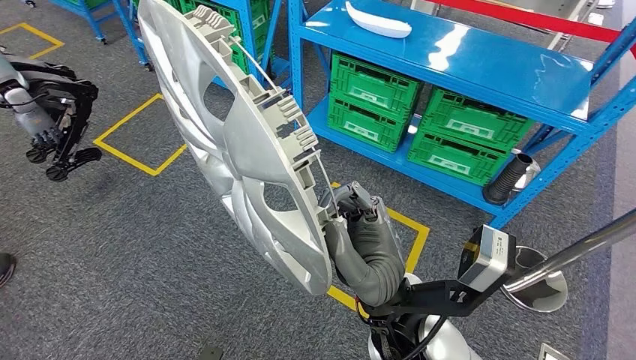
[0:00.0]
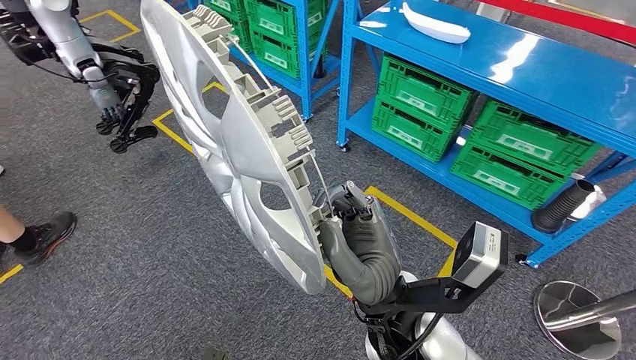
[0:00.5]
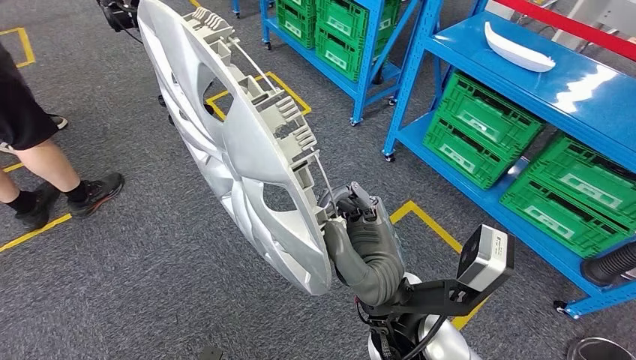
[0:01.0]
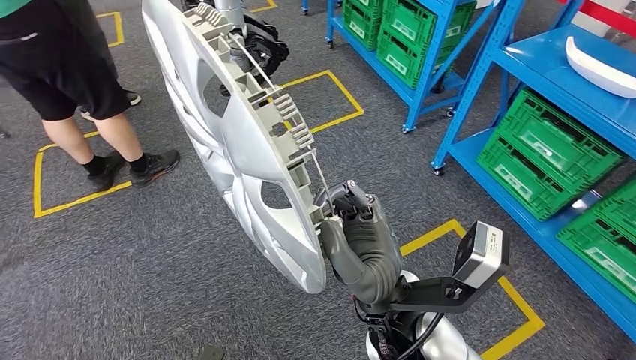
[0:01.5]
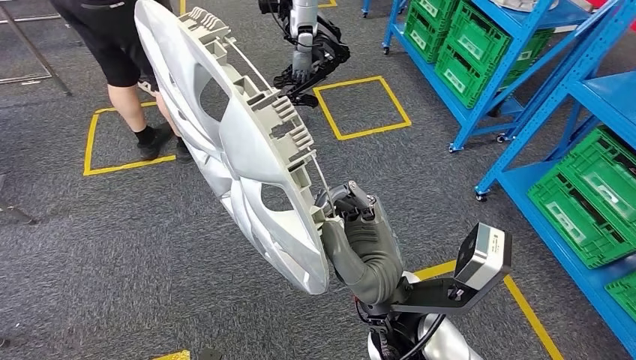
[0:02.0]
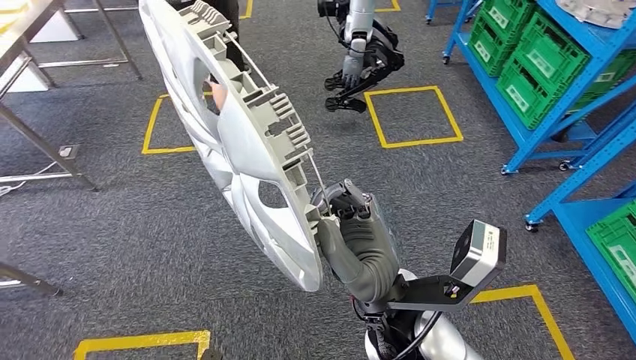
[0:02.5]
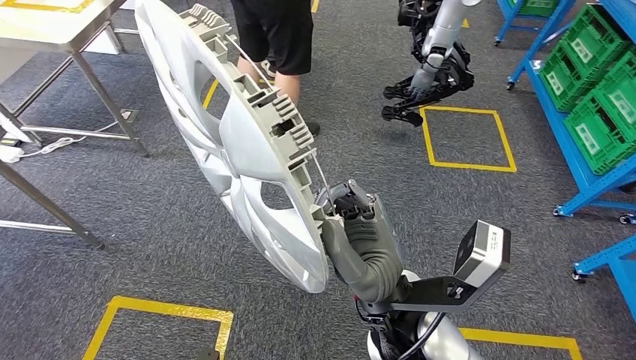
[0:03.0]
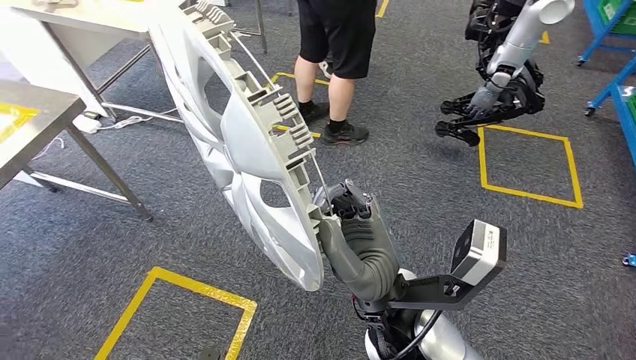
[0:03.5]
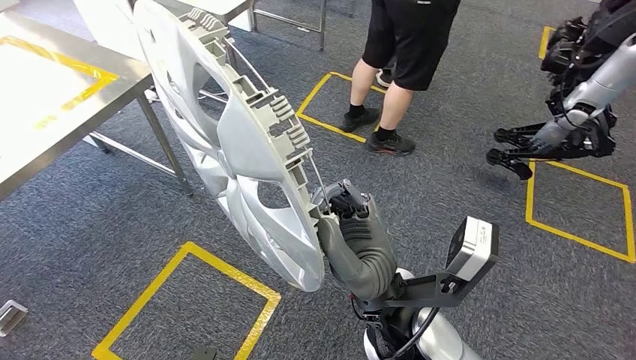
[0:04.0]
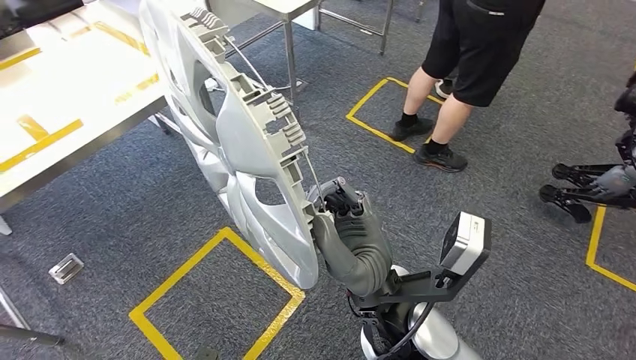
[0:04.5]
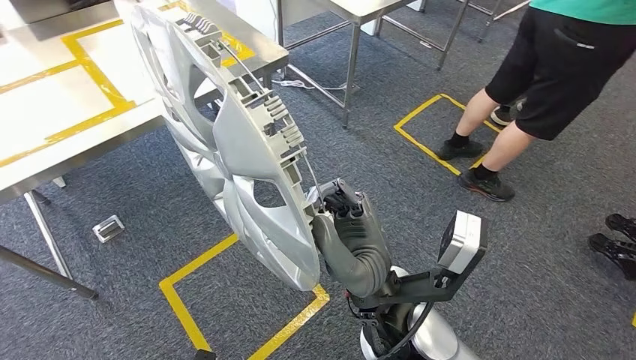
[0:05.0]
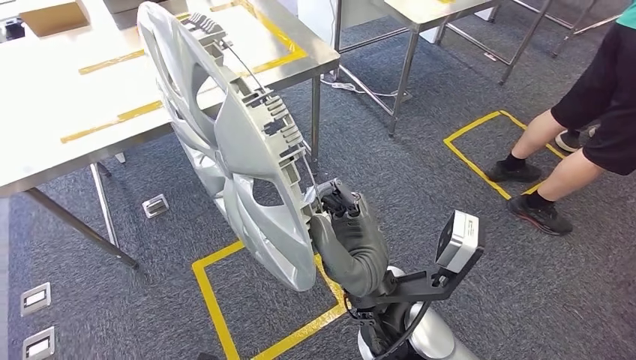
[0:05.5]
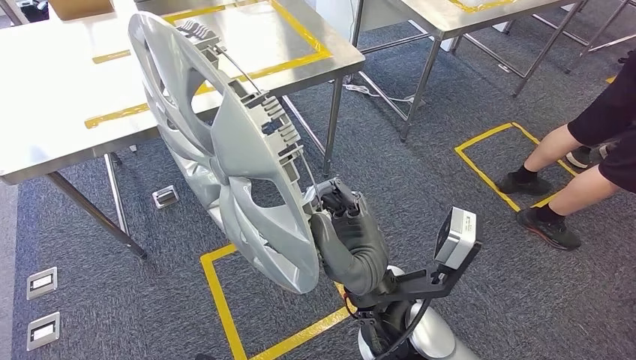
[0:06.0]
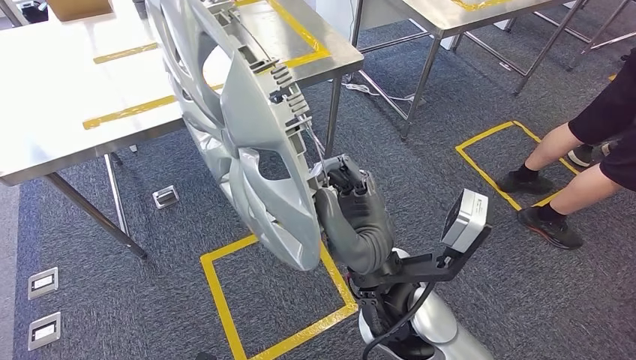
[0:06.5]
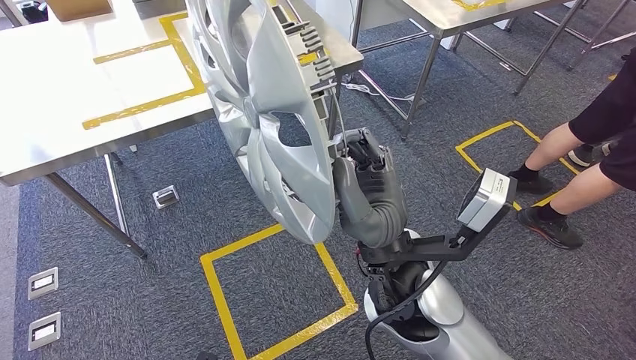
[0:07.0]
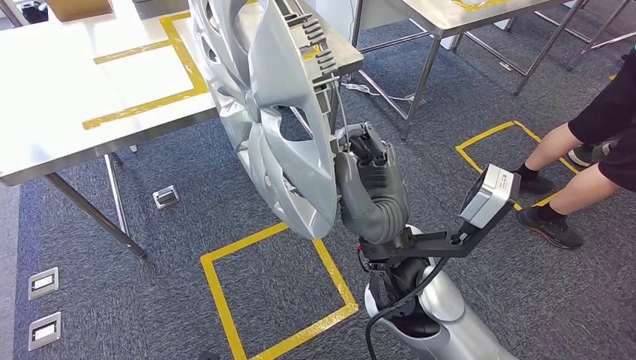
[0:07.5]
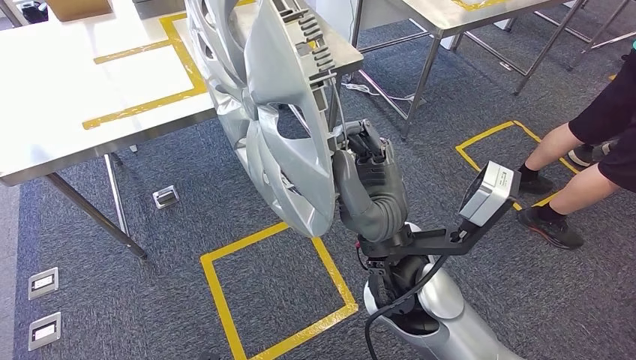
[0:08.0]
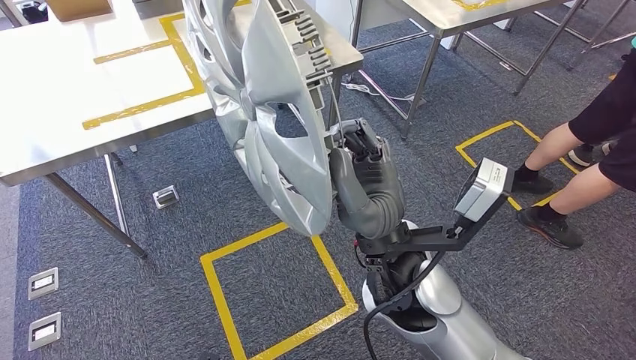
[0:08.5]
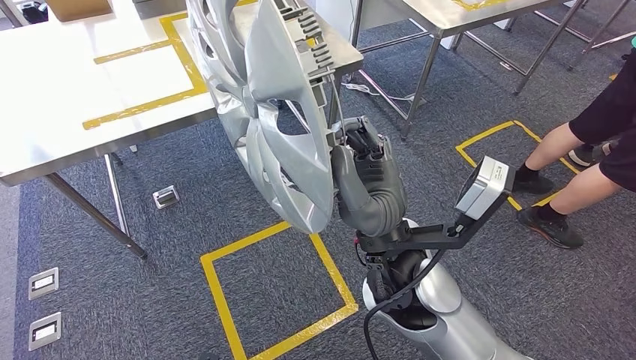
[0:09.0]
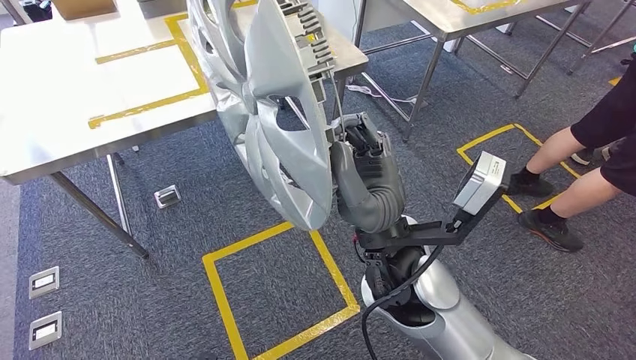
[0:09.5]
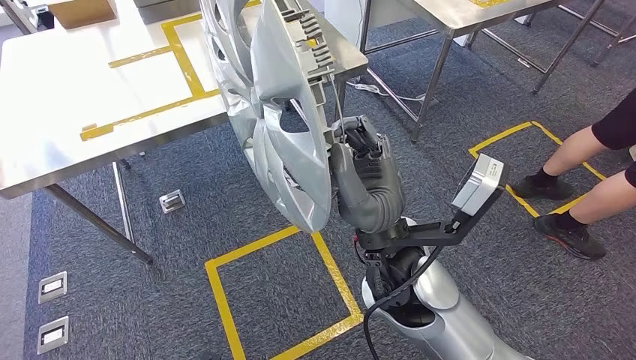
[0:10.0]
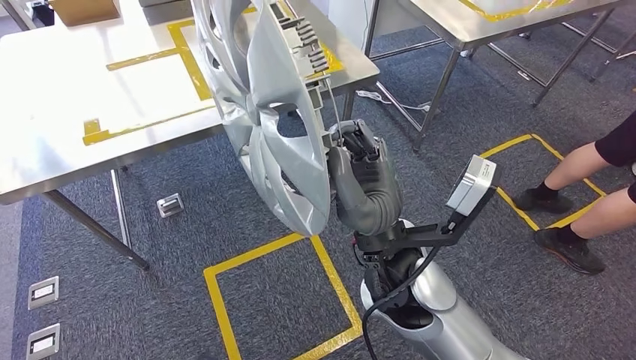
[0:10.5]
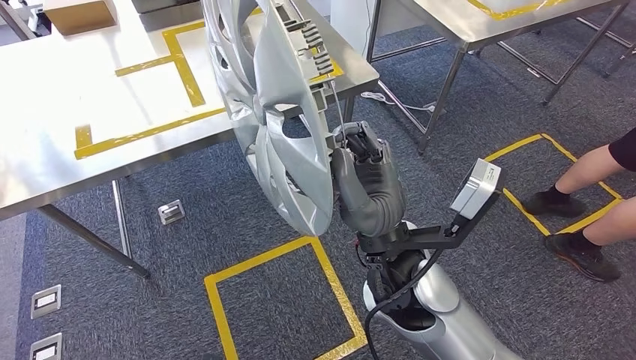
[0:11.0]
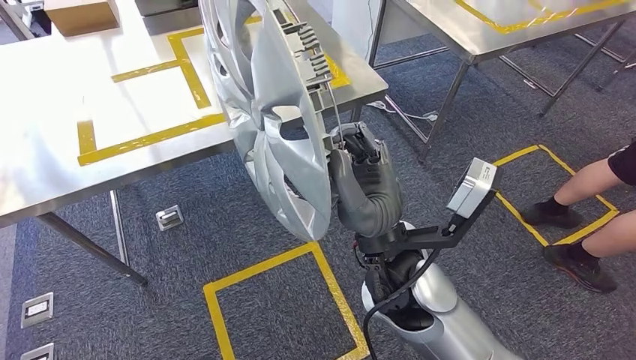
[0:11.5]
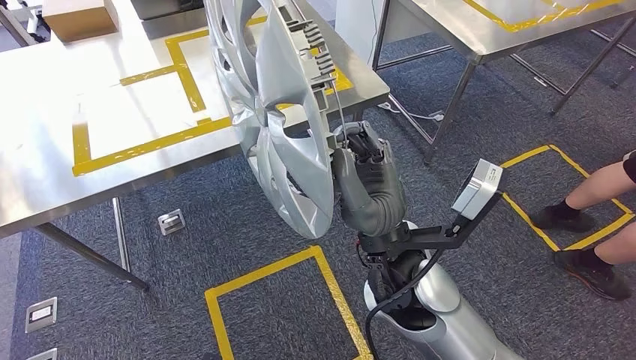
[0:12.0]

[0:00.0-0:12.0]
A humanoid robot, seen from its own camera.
Step, 0:00.0 to 0:07.5: Move the large material to the workbench.

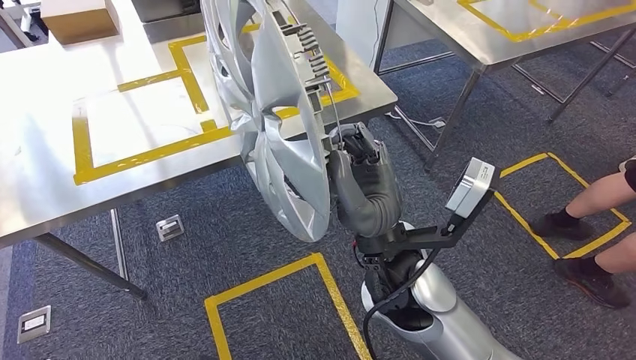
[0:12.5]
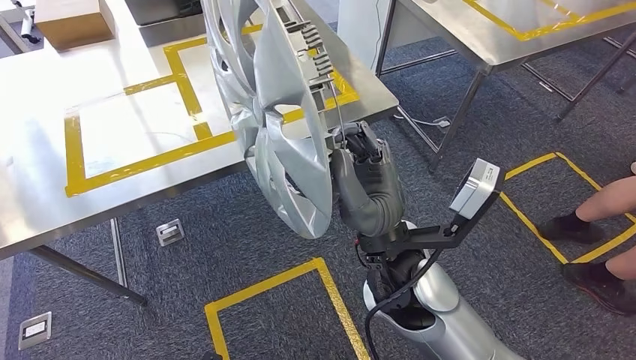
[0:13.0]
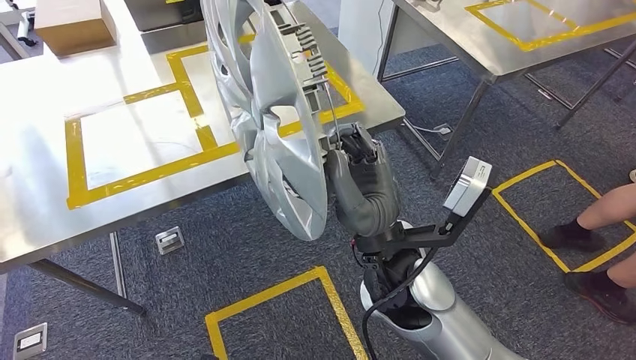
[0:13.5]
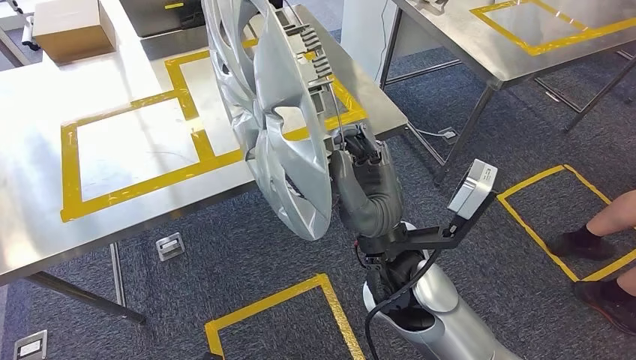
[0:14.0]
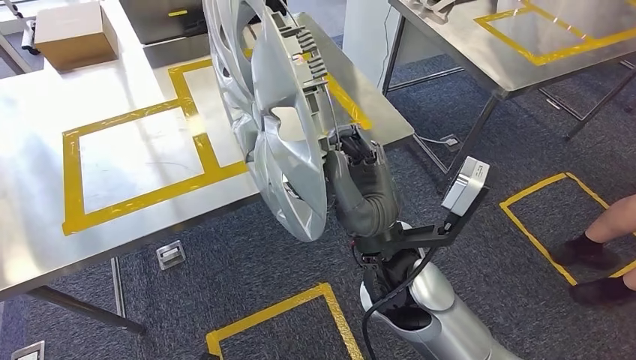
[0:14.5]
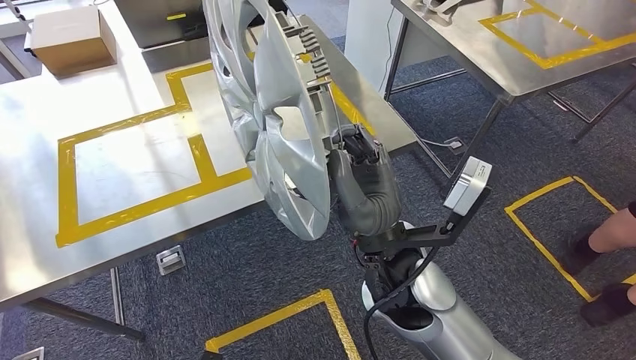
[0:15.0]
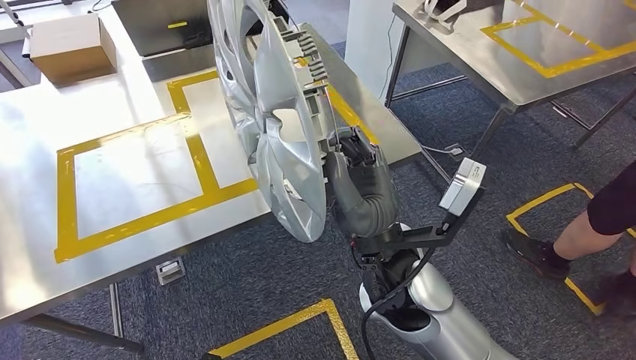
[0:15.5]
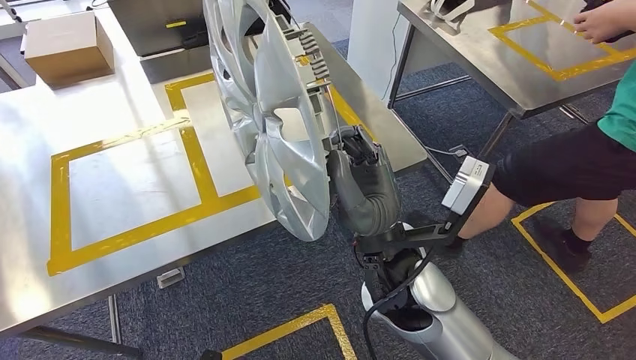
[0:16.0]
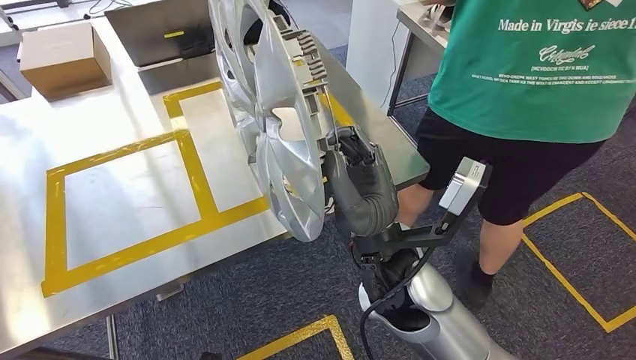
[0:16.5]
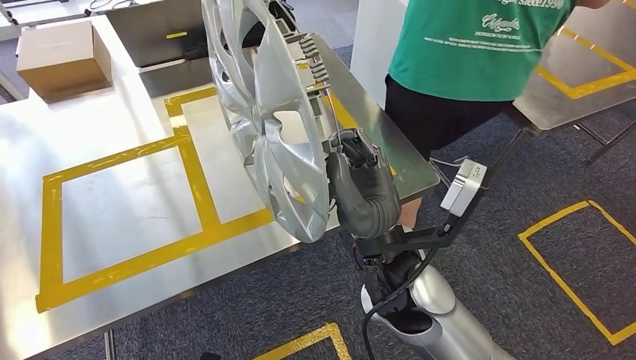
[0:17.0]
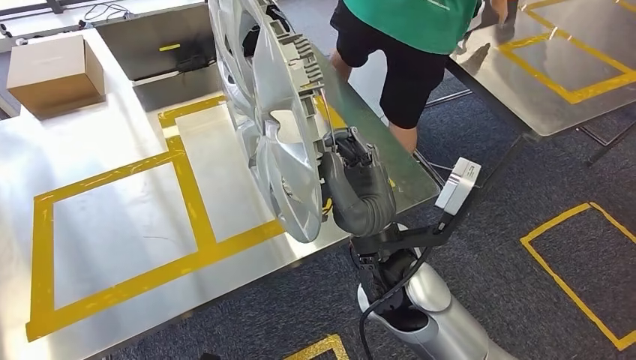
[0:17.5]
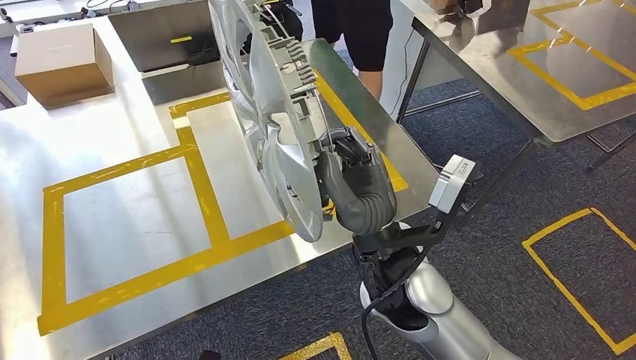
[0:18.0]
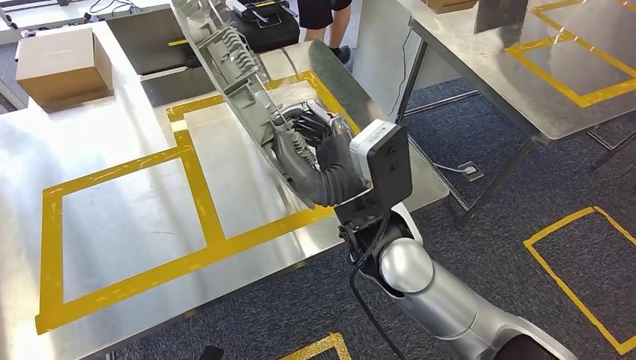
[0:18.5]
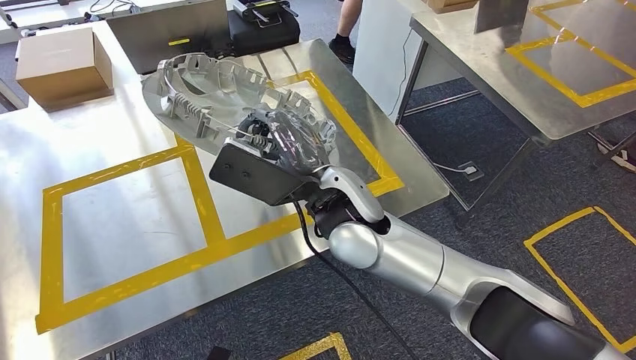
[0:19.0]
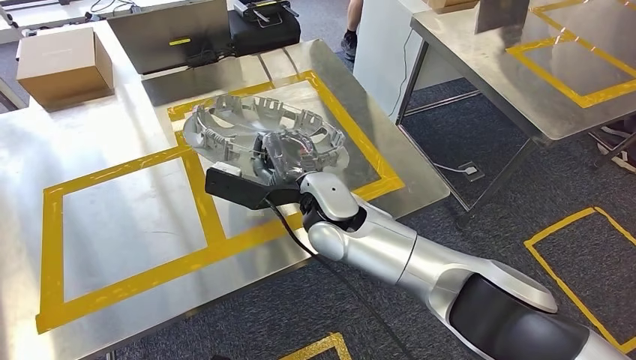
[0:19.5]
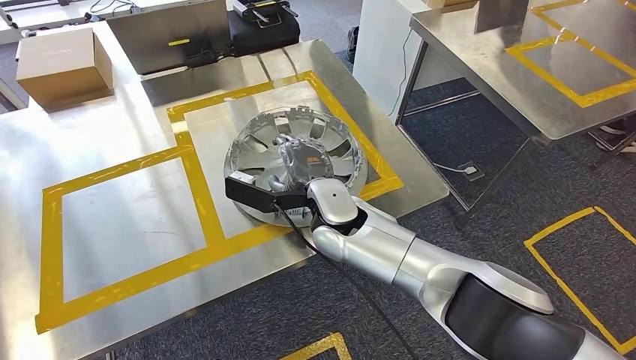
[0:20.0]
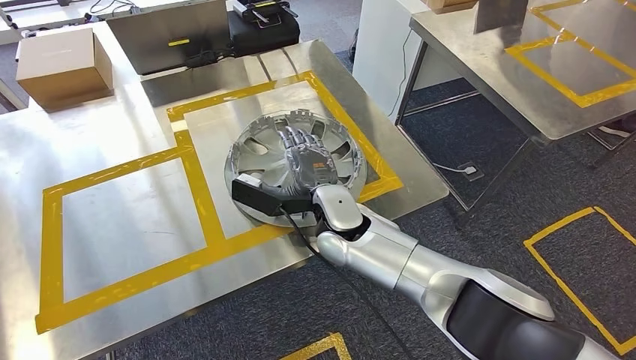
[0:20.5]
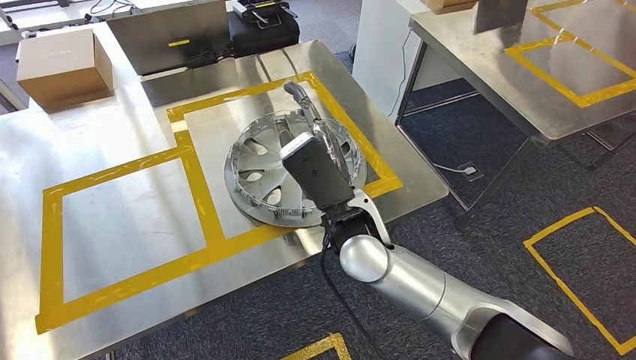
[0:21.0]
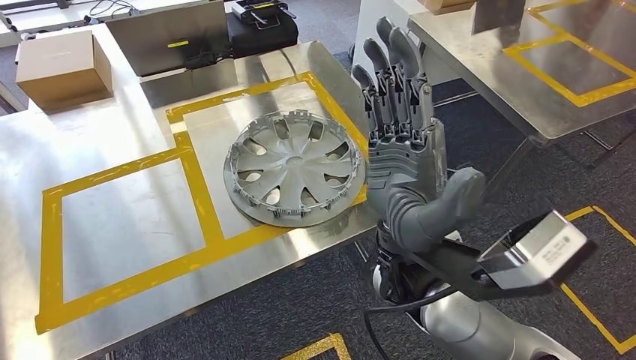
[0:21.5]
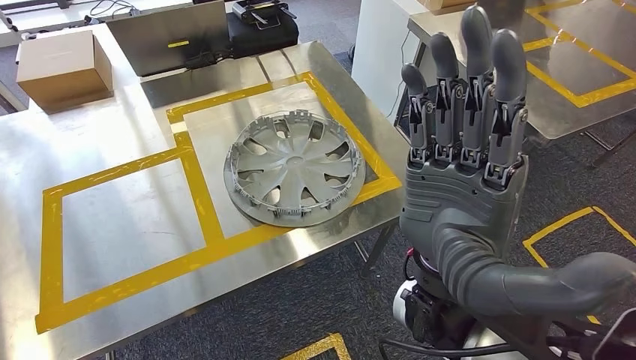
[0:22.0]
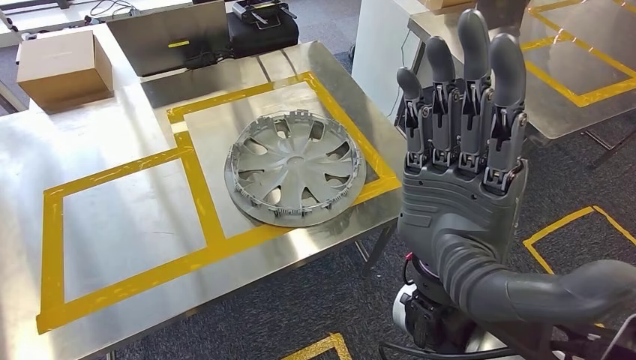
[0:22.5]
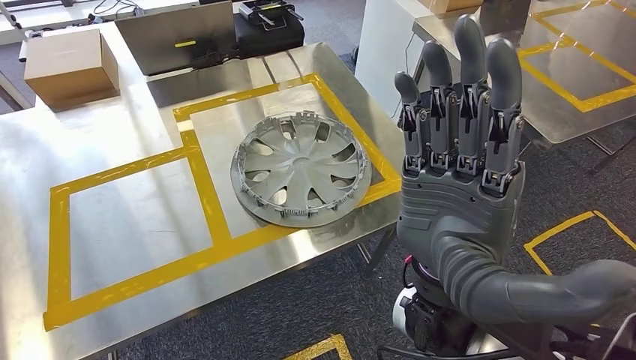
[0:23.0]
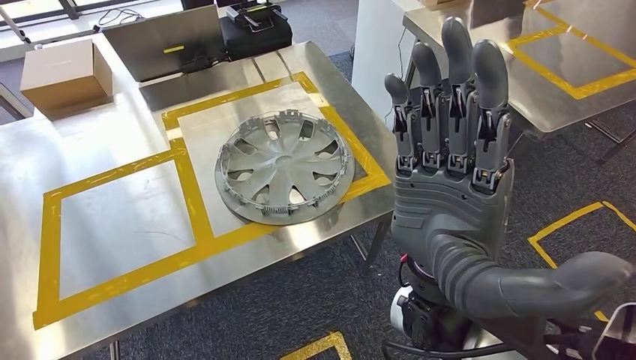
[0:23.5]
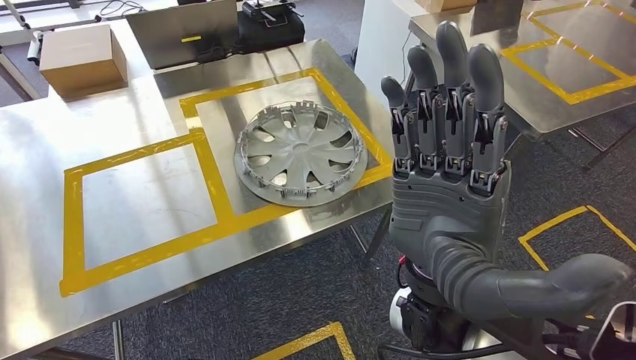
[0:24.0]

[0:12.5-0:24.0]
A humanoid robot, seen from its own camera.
Step, 0:12.5 to 0:21.5: Insert the large material into the corresponding slot on the workbench.
